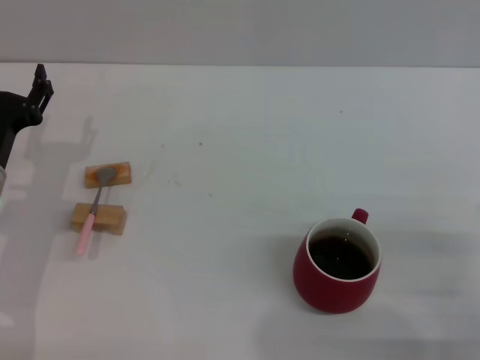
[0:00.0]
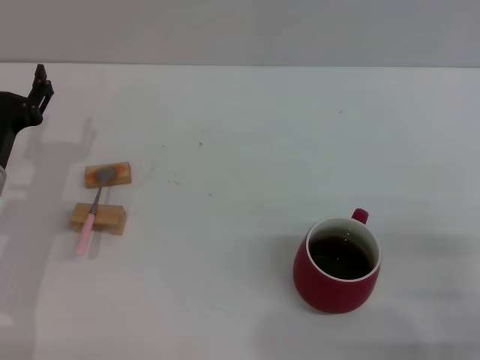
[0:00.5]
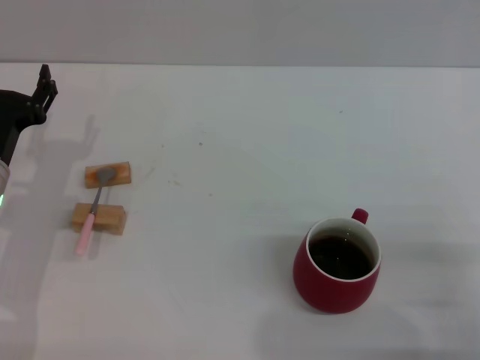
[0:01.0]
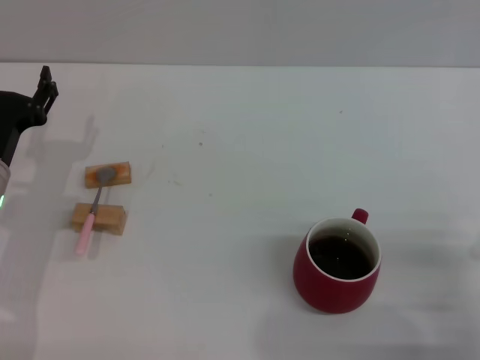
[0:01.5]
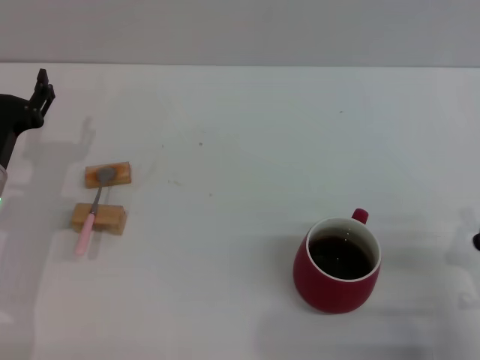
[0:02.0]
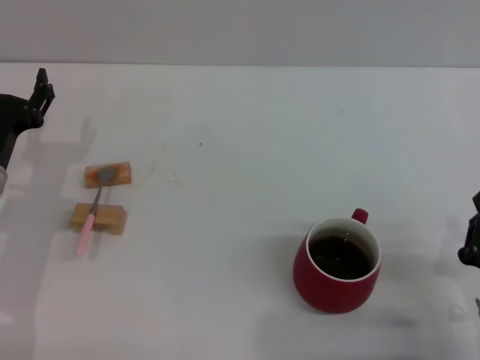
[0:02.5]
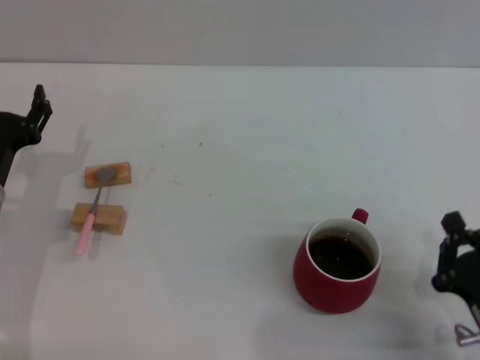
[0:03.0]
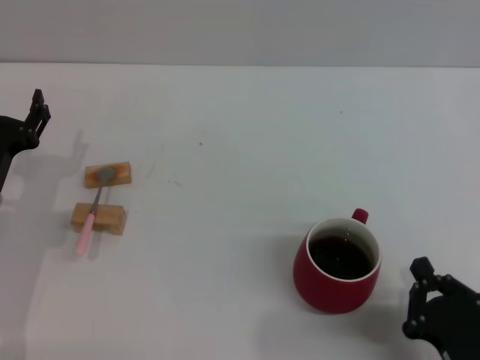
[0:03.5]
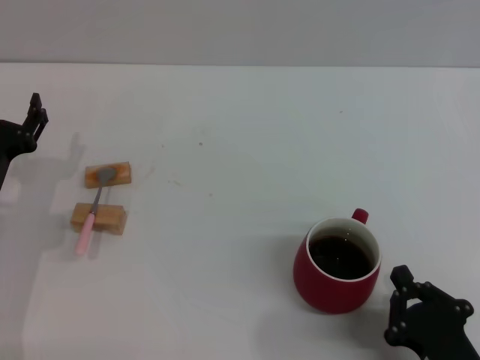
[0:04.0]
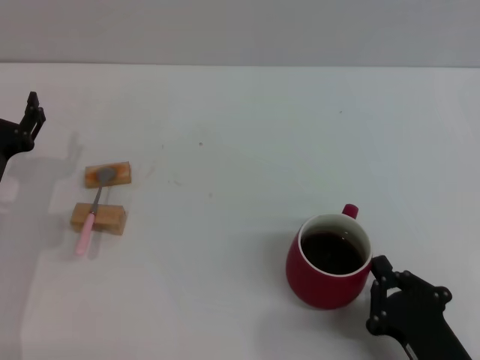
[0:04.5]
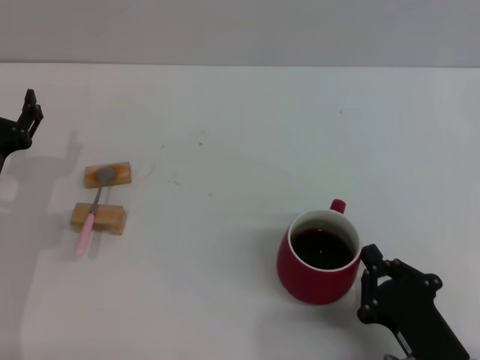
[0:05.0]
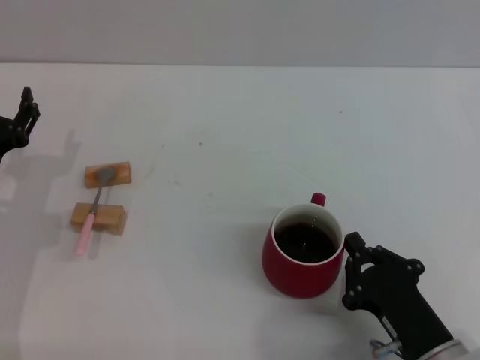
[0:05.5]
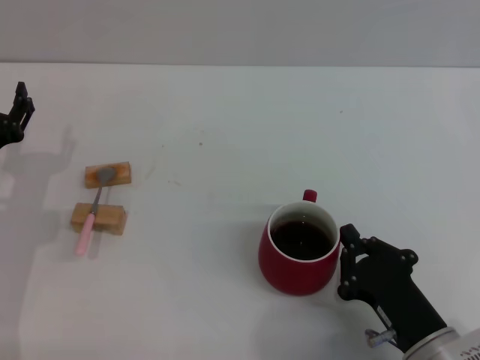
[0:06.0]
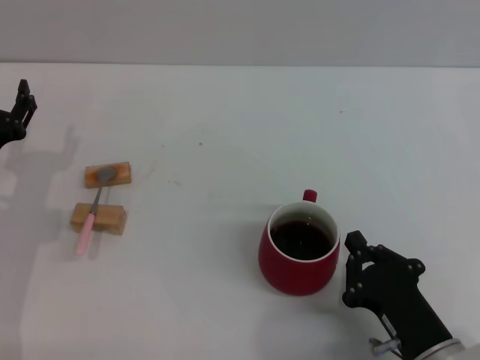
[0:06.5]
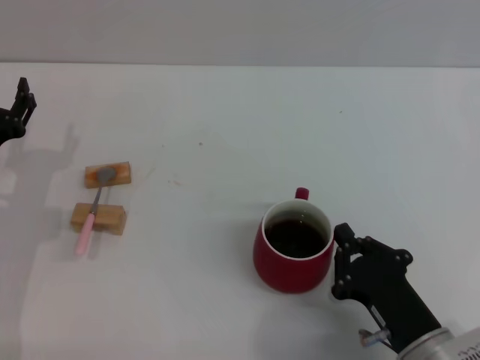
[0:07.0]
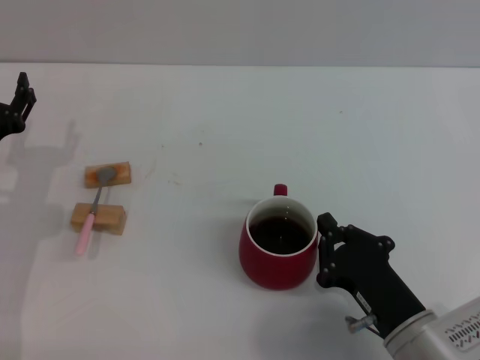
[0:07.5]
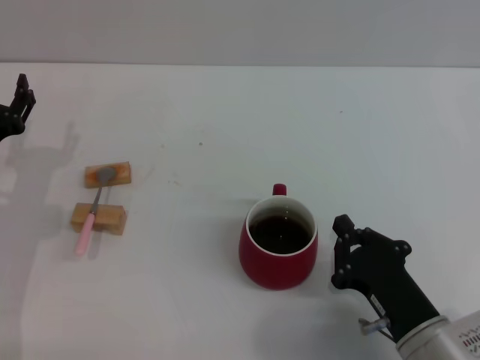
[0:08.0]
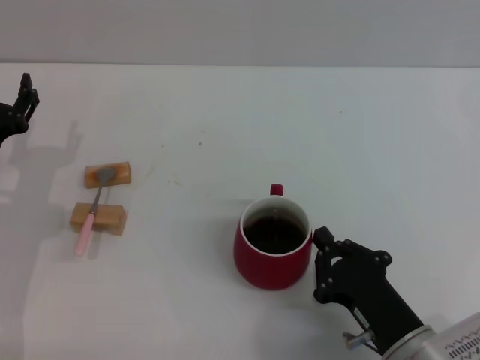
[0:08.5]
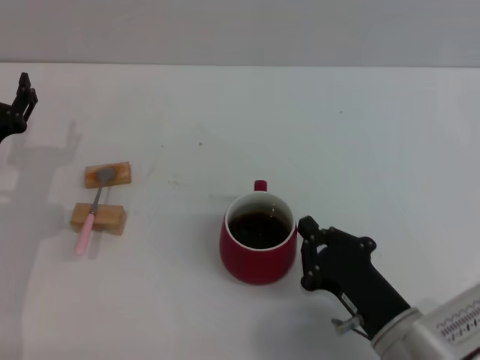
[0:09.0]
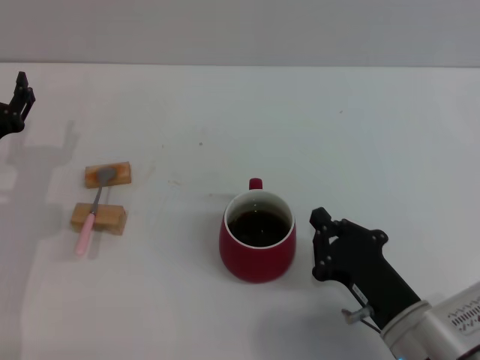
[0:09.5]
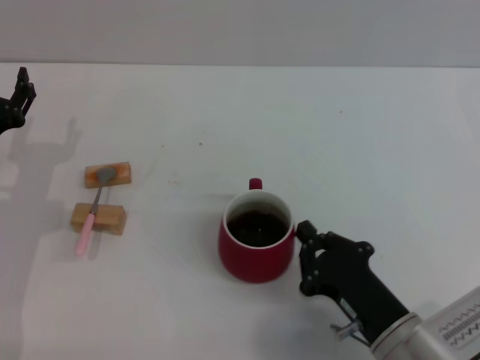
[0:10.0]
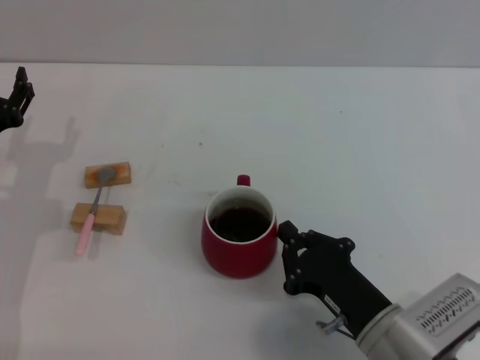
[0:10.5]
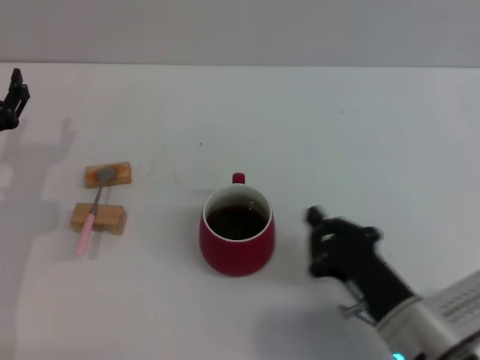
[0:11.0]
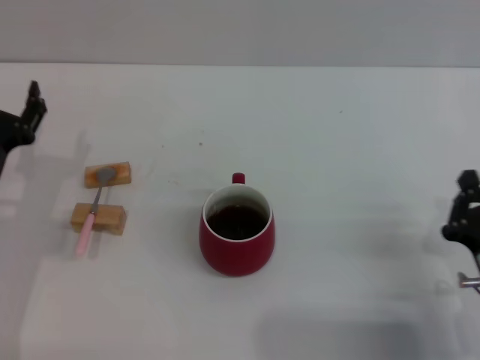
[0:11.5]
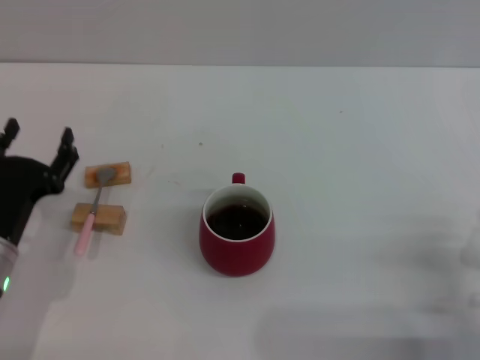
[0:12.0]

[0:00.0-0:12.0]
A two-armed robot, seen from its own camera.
Task of the whole recording: Move the red cup to the center, lift the pink spoon, stir it three times in the cup, and put the spoon into the cup.
Step, 0:00.0 to 0:11.0: Move the cup with coffee to the center of view with the right gripper.
0:02.0 to 0:04.0: The right gripper moves backward and to the left, roughly 10 cm.
0:04.0 to 0:06.0: The right gripper heads forward, covering roughly 5 cm.
0:06.0 to 0:10.0: There are only small adjustments of the grippers.
0:10.0 to 0:12.0: The left gripper moves backward, about 5 cm; the right gripper travels to the right by approximately 10 cm.

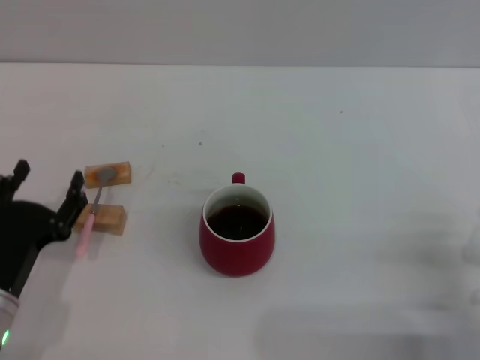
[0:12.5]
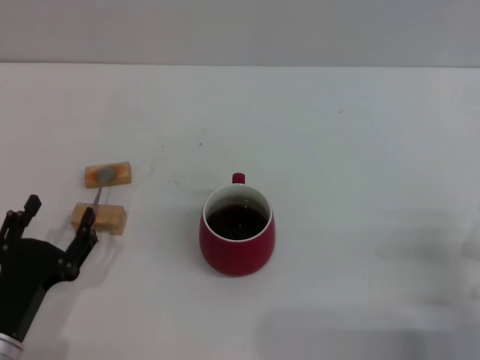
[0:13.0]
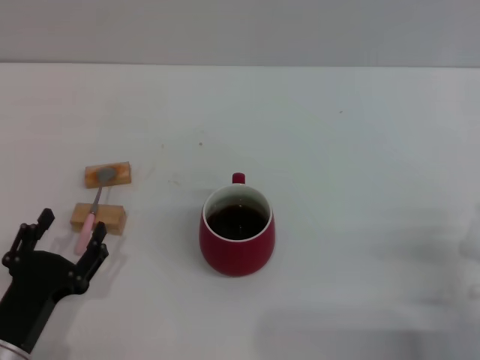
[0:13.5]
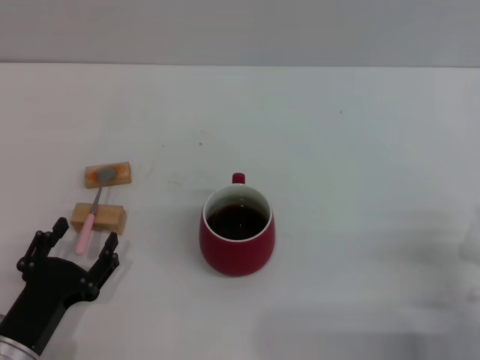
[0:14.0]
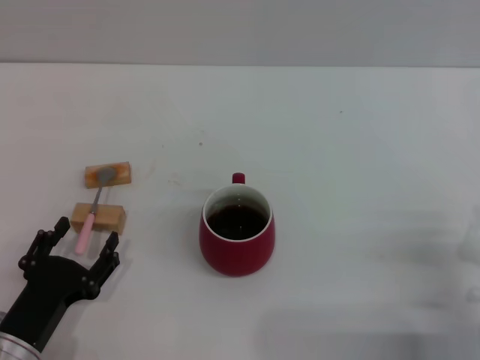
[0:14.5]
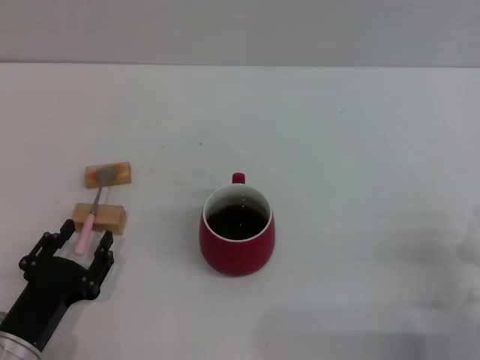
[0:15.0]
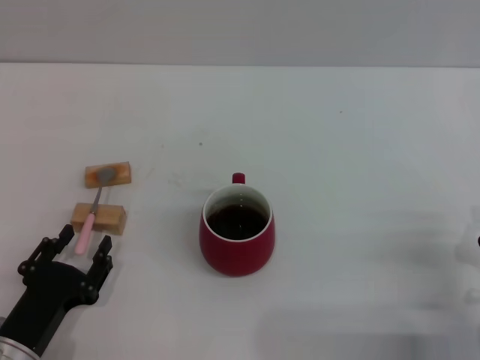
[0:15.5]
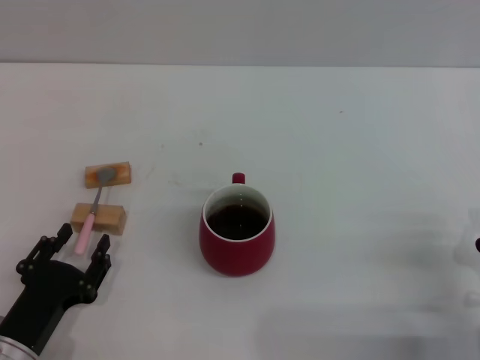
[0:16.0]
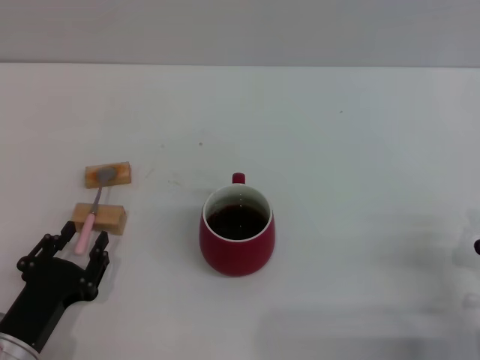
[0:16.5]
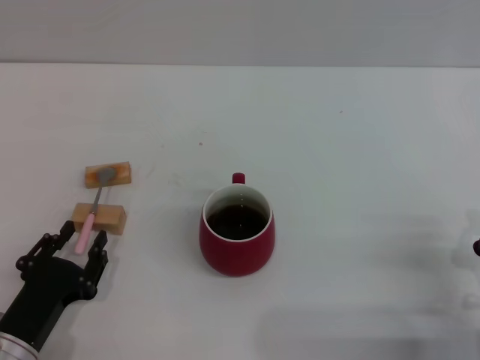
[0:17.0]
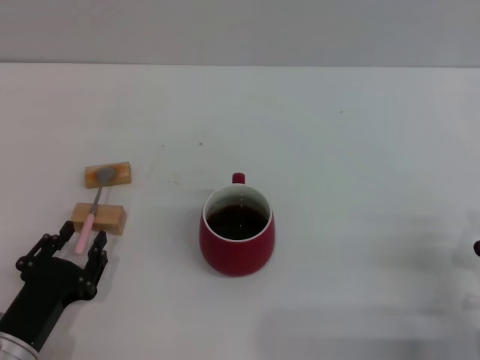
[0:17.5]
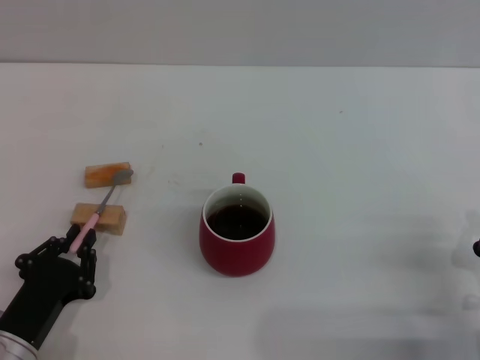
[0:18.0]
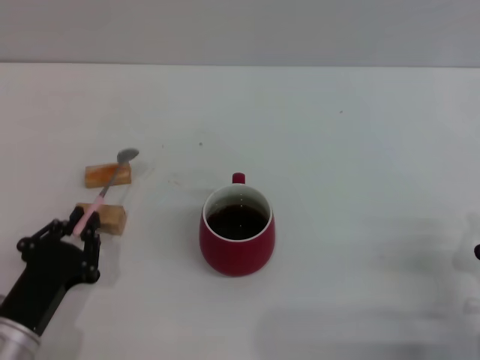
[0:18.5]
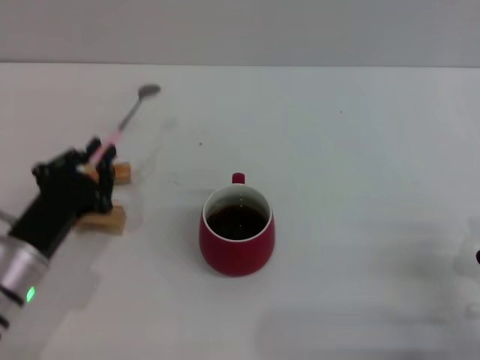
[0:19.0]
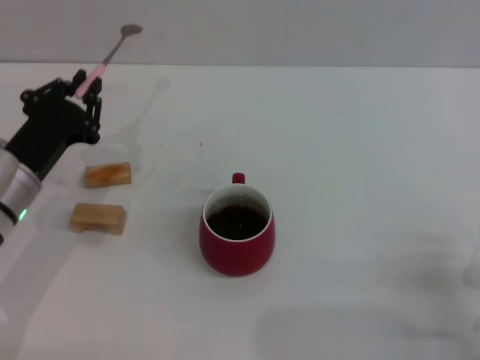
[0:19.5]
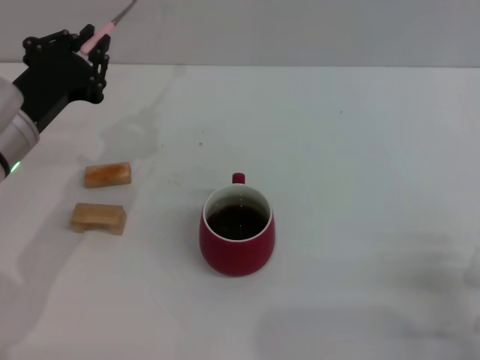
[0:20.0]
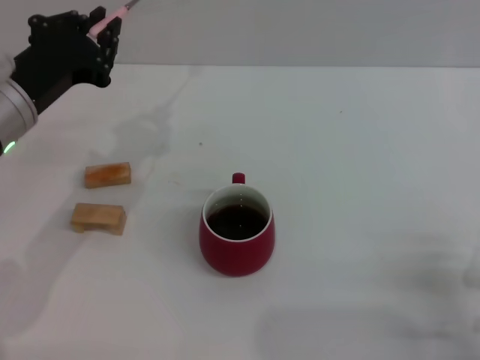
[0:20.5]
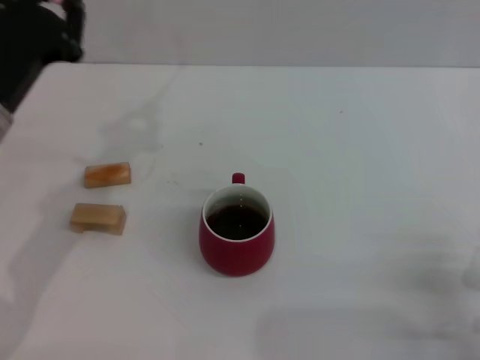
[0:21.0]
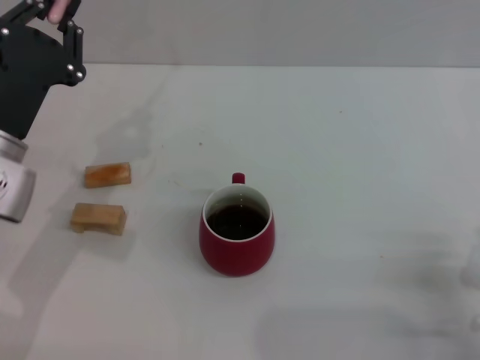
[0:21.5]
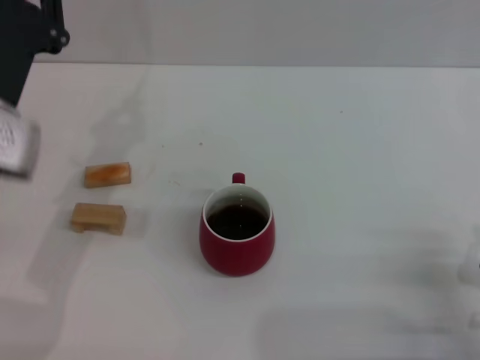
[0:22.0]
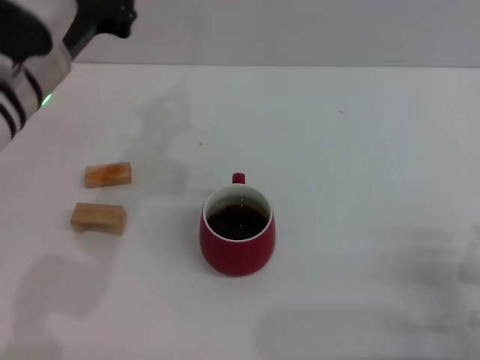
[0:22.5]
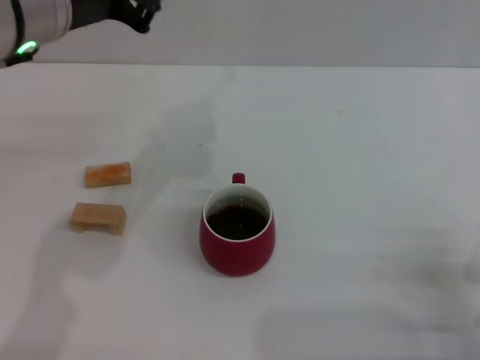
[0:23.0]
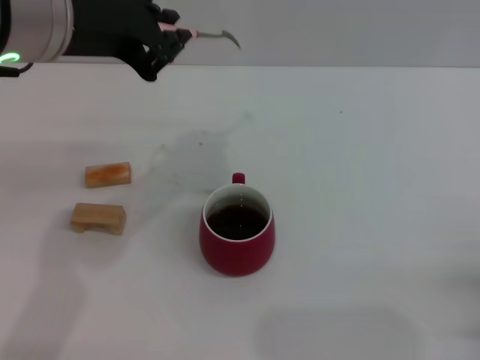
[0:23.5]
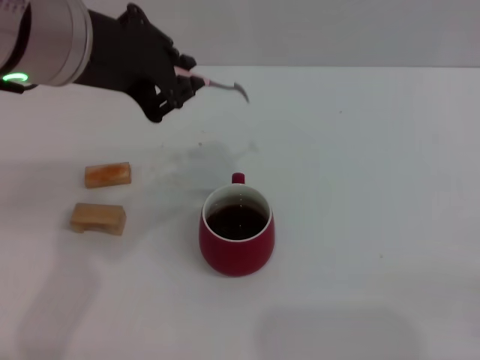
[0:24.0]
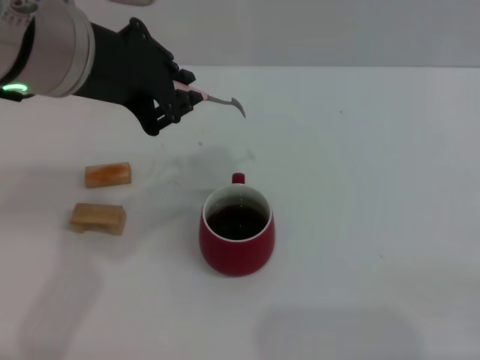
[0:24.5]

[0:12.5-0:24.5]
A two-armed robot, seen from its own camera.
Task of the whole recording: Move the red cup to the center, lift the pink spoon, stir it three times in the cup, and put the spoon into the cup.
Step, 0:12.5 to 0:18.5: Pick up the spoon with the left gripper.
0:12.5 to 0:14.5: The grippers stay close to where they were, moving slightly.
0:14.5 to 0:16.5: The left gripper closes its fingers.
0:16.5 to 0:18.5: The left gripper closes its fingers.
0:18.5 to 0:20.5: The left gripper moves upward and forward, some 20 cm.
0:20.5 to 0:22.5: The left gripper changes place by approximately 5 cm.
0:22.5 to 0:24.5: The right gripper goes roughly 5 cm to the right. Meanwhile the left gripper is displaced upward by approximately 10 cm.

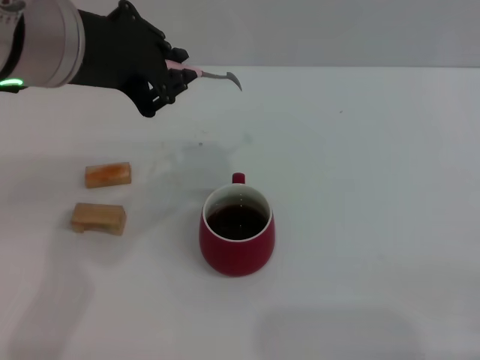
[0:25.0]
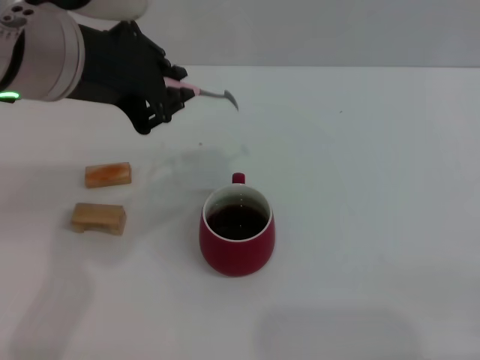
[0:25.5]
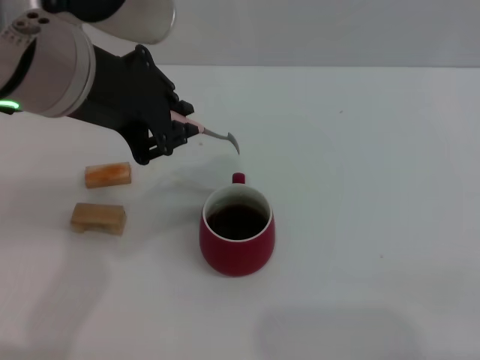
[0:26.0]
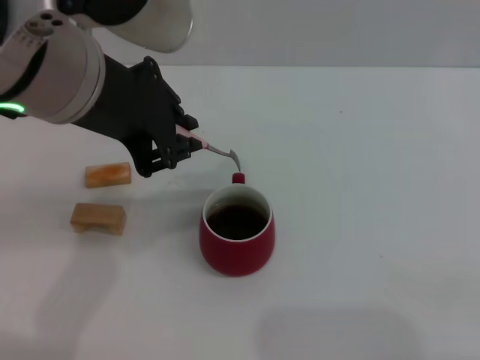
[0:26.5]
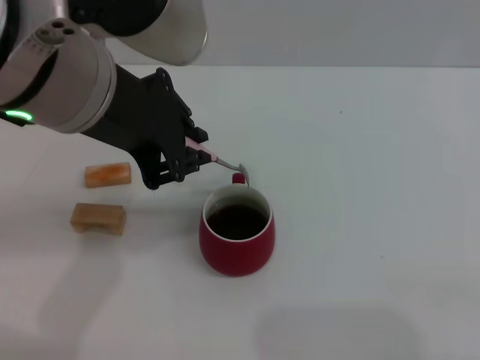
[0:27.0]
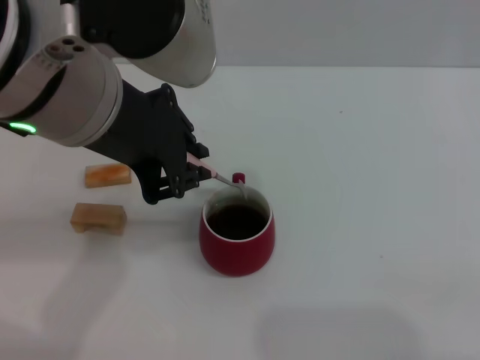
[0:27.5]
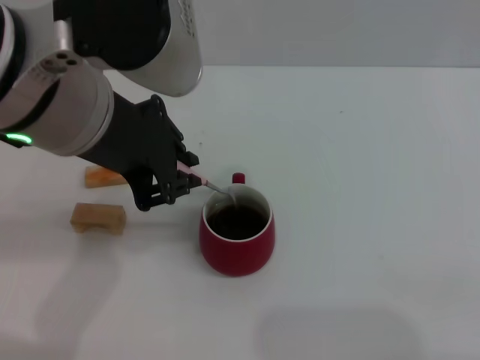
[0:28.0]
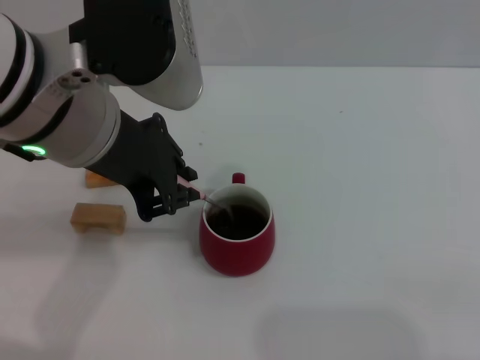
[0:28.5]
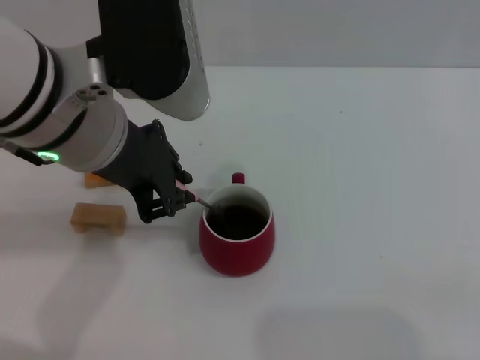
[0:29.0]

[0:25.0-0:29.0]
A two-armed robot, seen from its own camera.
Task of the whole recording: Move the red cup to the center, lift the pink spoon, stir it three times in the cup, and put the spoon into the cup.
0:25.0 to 0:27.0: The grippers stay close to where they were, moving slightly.
0:27.0 to 0:29.0: The left gripper shifts approximately 5 cm downward.
